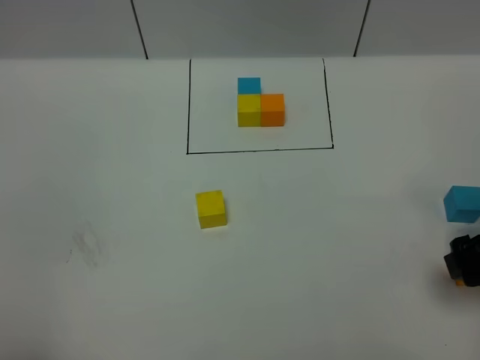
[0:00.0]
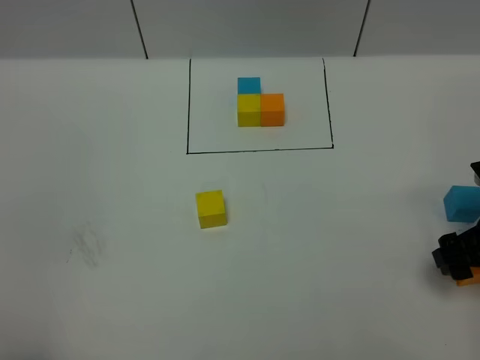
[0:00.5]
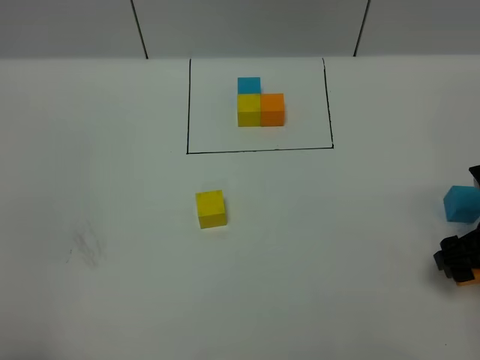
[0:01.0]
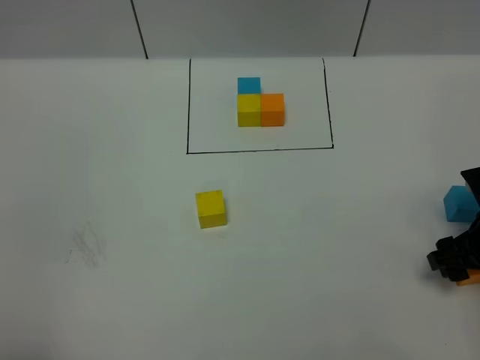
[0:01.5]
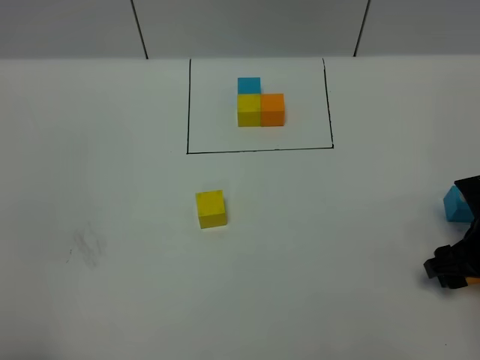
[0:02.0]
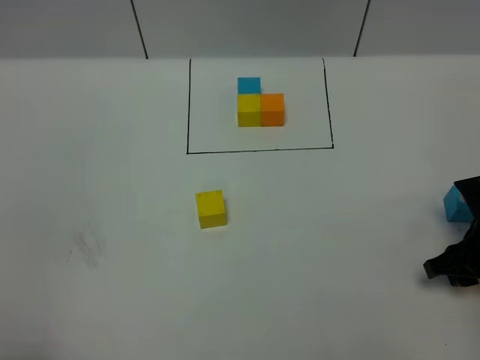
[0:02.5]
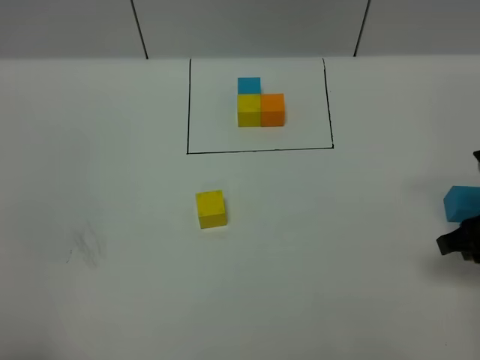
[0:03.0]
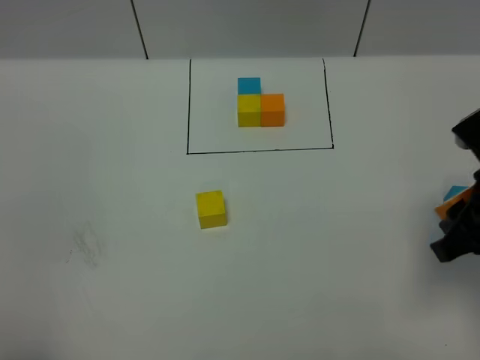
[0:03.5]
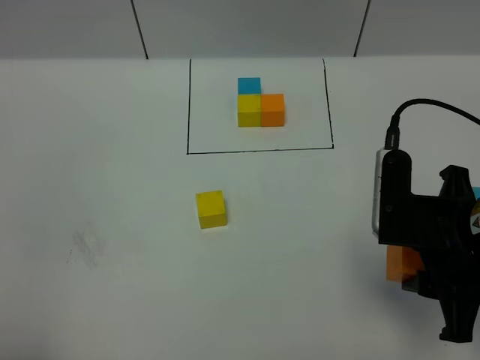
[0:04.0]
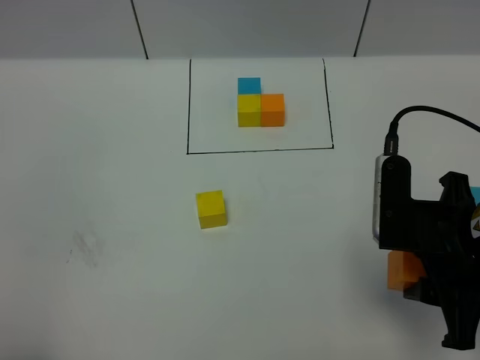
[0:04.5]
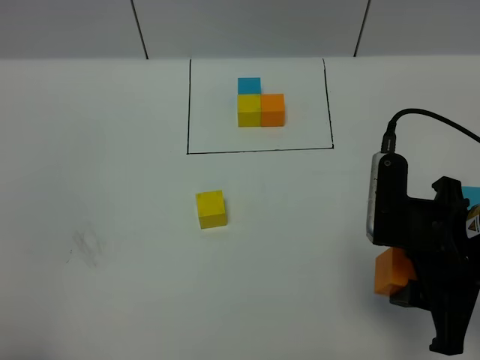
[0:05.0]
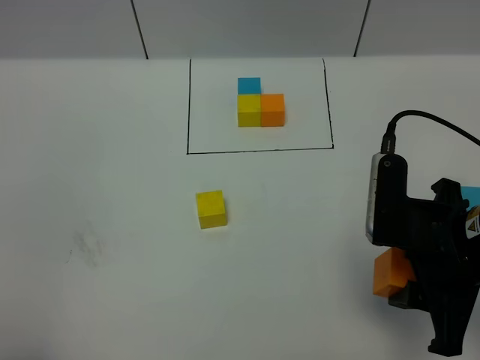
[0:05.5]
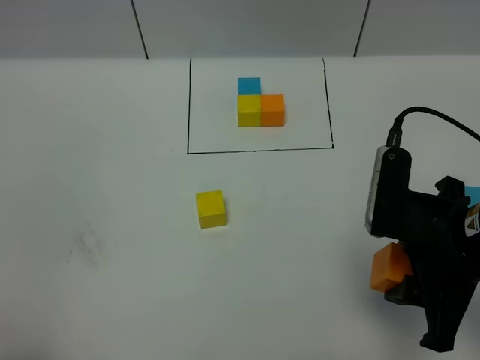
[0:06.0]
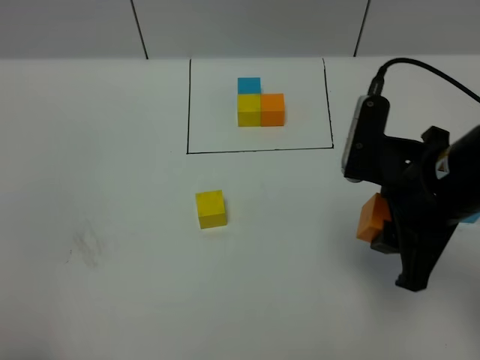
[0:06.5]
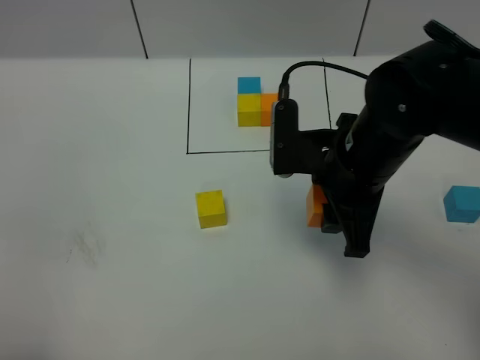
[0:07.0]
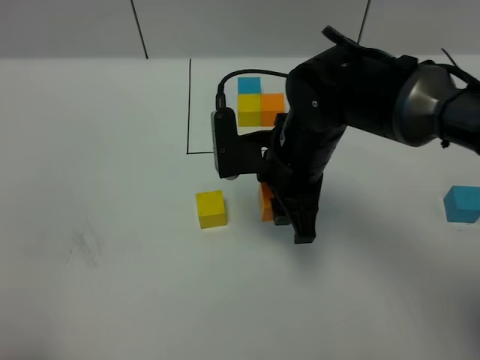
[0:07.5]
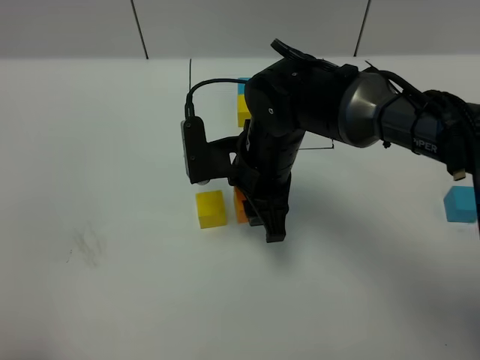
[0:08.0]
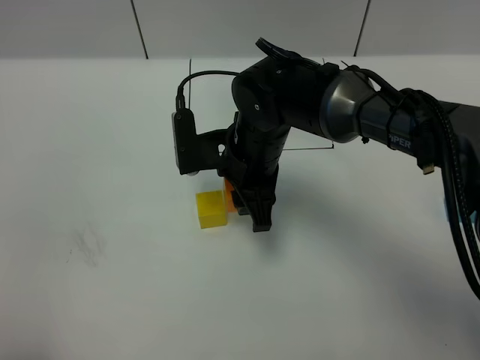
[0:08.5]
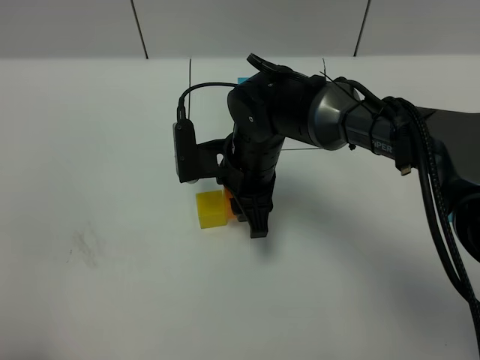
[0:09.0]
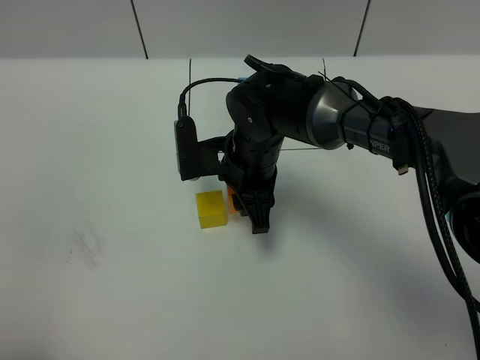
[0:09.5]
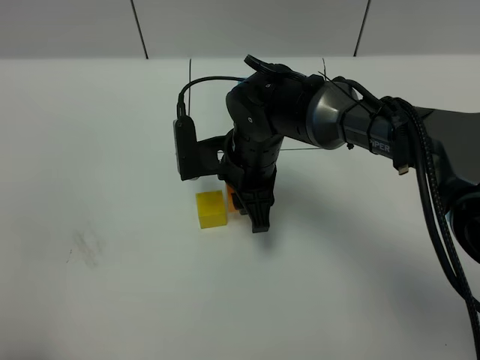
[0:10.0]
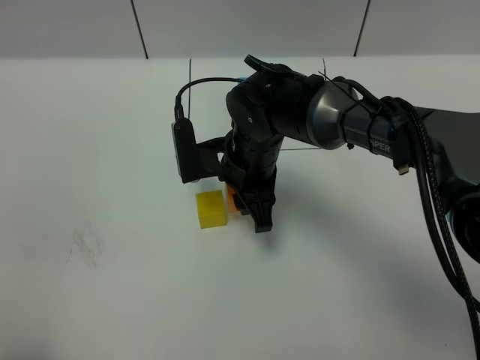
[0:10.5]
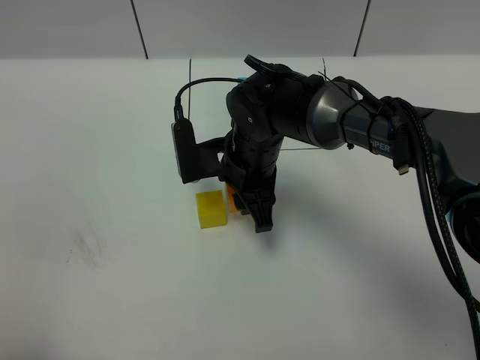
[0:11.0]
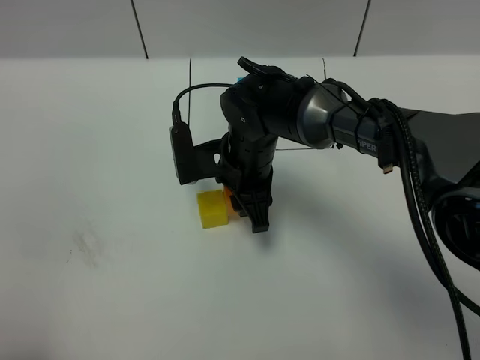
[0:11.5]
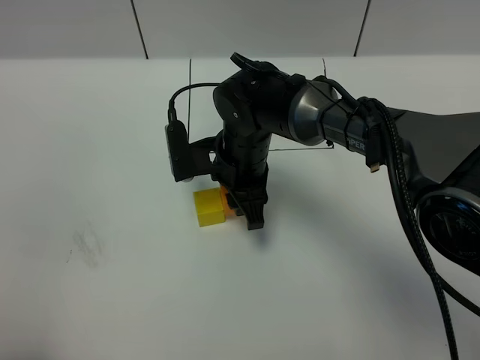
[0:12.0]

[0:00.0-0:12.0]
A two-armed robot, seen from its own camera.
Task of the whole recording: According to the building block template in front, assemble the scattered blocks together.
0.0 to 2.0 s: The right gripper heads downward, covering some 5 cm.
2.0 to 4.0 s: The right gripper heads upward, to the left and backward, covering some 20 cm.
4.0 to 6.0 s: The grippers stay close to where they were, moving slightly.
6.0 to 8.0 s: The right gripper heads to the left and forward, covering some 20 cm.
8.0 to 12.0 s: There are only small adjustments of the grippers.

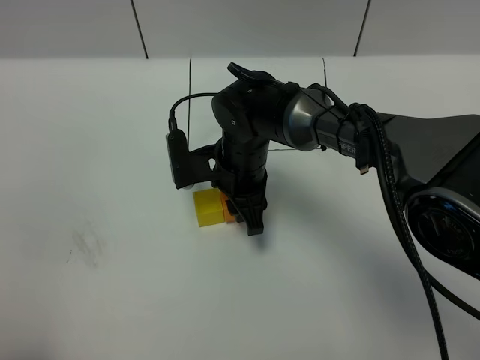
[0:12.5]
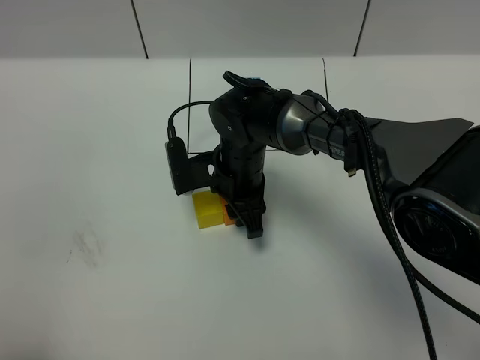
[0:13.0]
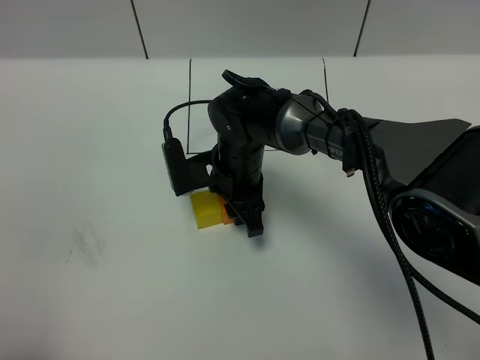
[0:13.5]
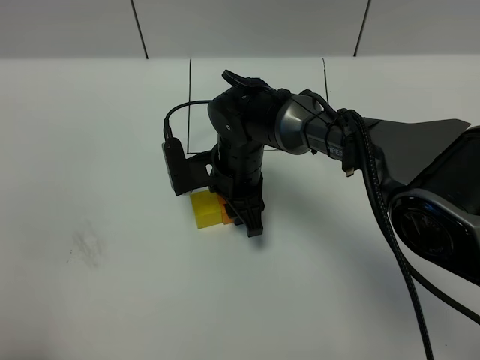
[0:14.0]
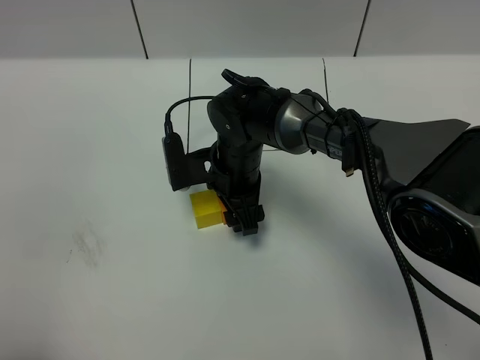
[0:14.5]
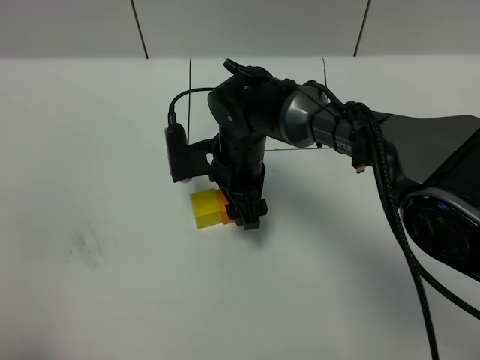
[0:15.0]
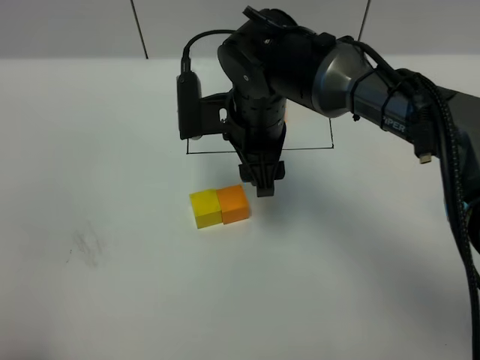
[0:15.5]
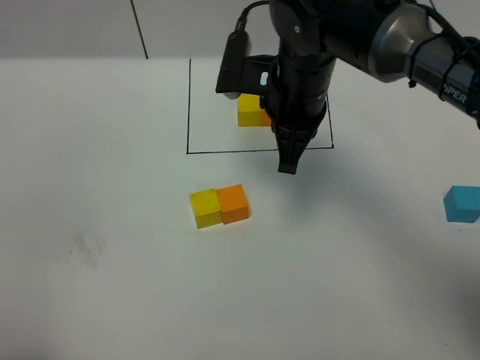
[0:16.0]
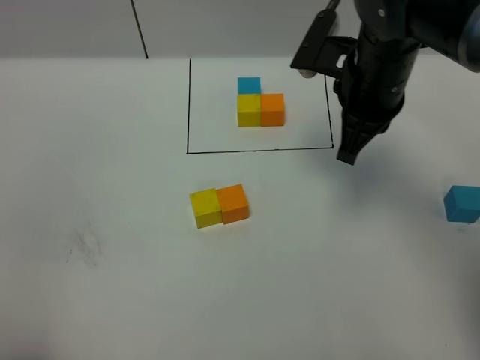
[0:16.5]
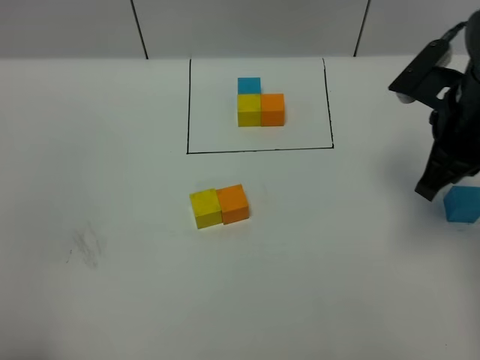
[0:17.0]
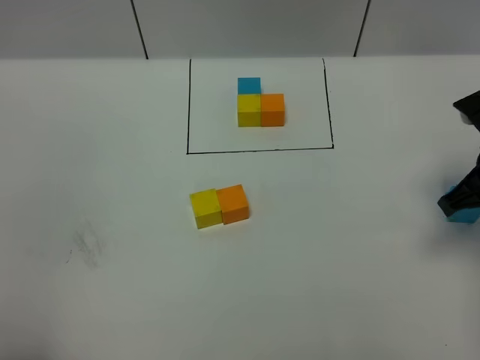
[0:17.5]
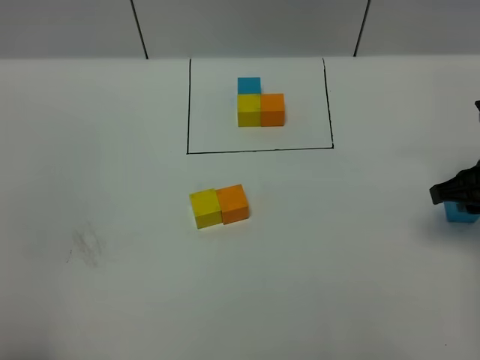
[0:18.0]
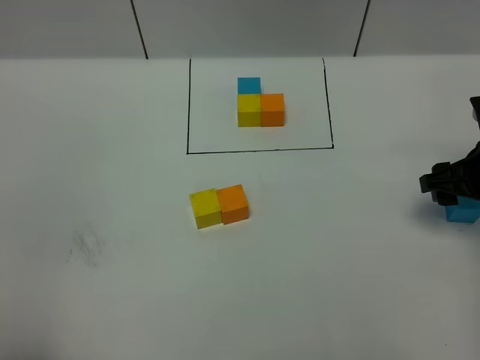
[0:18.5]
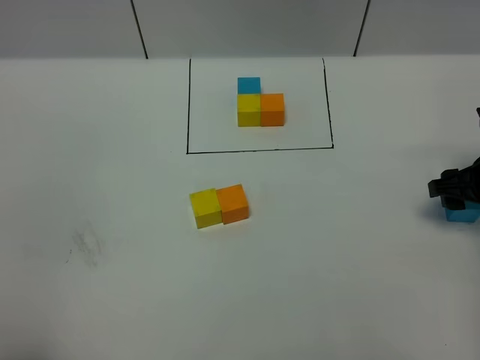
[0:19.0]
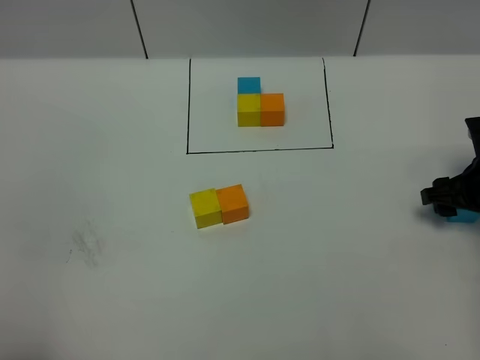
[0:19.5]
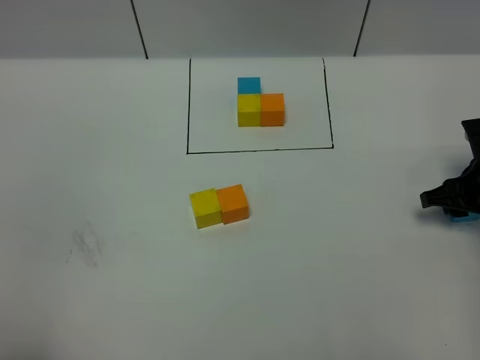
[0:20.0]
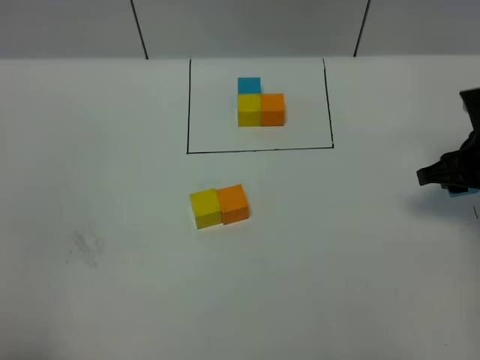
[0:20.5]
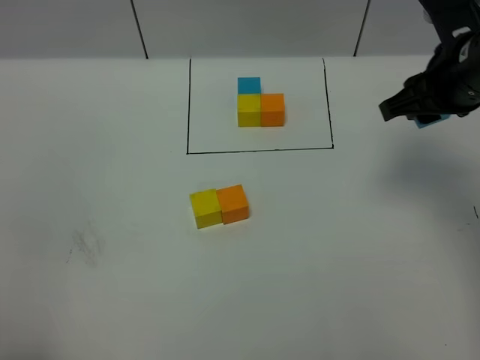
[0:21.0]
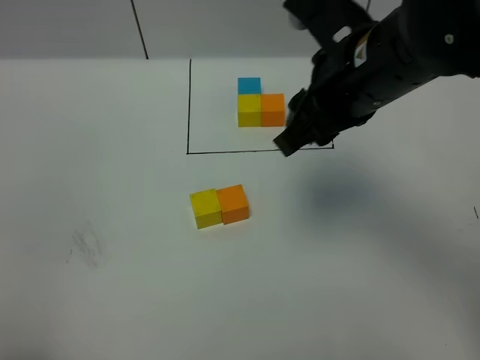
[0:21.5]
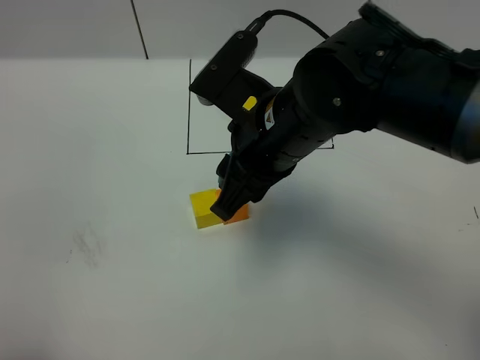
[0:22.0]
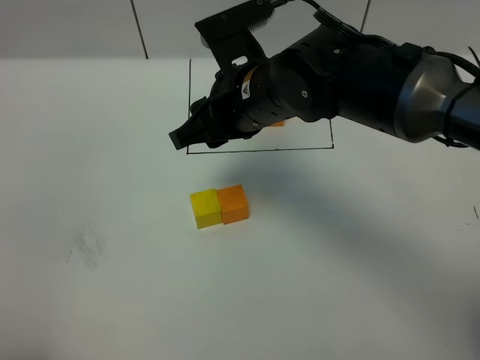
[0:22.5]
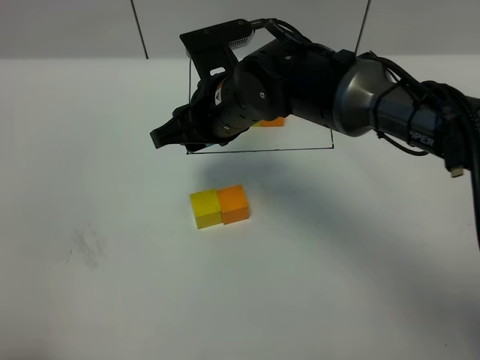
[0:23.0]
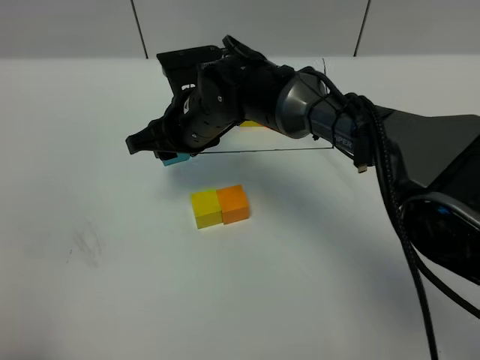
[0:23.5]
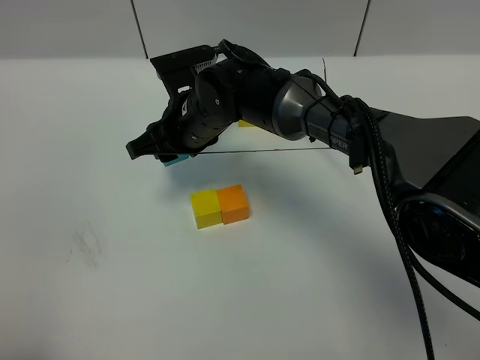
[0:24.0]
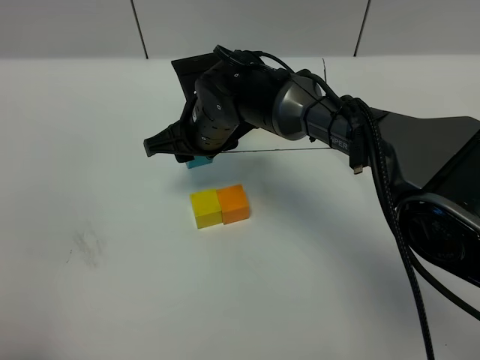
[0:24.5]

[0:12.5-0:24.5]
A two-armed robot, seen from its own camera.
Task of the whole recording: According to the building block template in front, assemble the scattered blocks together.
Step, 12.5 to 15.5 s: Put the orange cube on the right of the yellow cube.
12.5 to 14.5 s: The grippers make only small movements.
14.5 to 16.5 s: The right gripper goes about 20 cm to the right and upward, and closes up.
16.5 to 18.5 s: The right gripper heads to the right and downward, covering roughly 20 cm, and opens.
18.5 to 20.5 s: The grippers stay close to where they were, moving slightly.
20.5 to 22.5 s: The right gripper travels to the left by roughly 30 cm.
22.5 to 24.5 s: The right gripper is displaced downward, forward and to the left by some 15 cm.

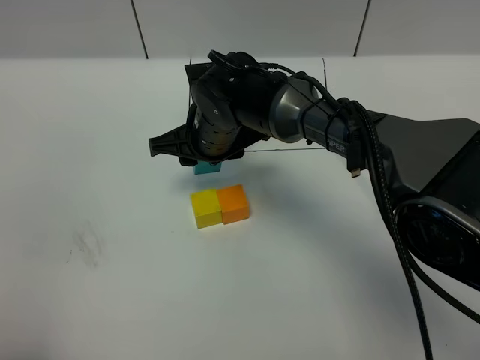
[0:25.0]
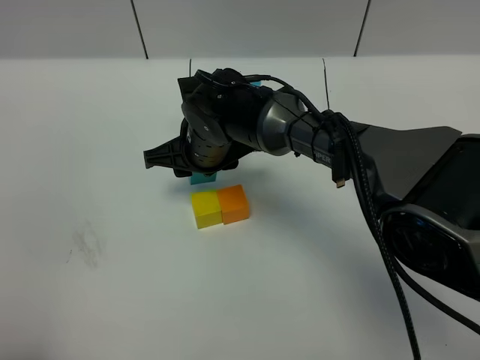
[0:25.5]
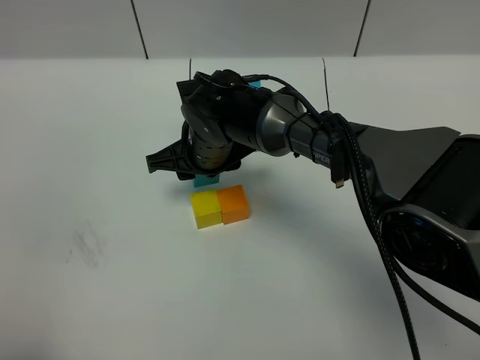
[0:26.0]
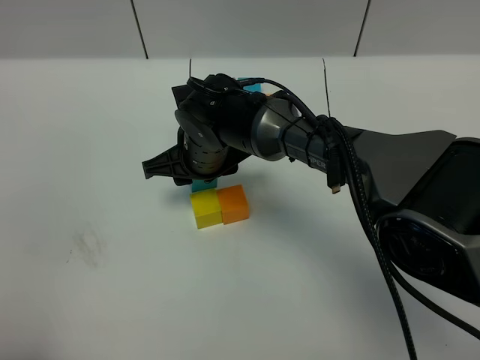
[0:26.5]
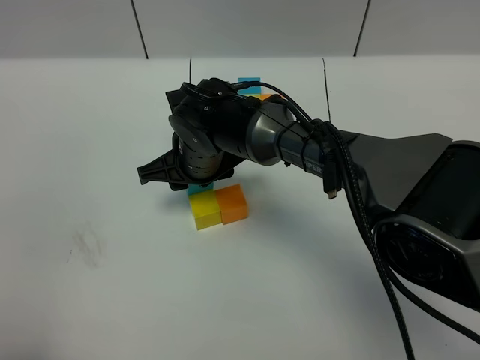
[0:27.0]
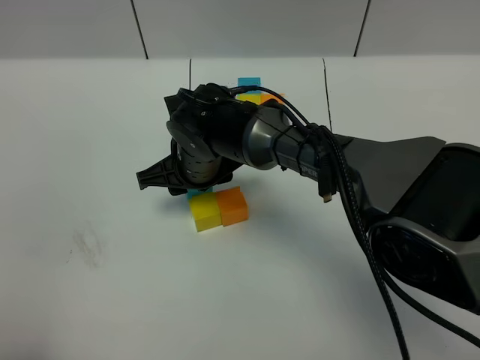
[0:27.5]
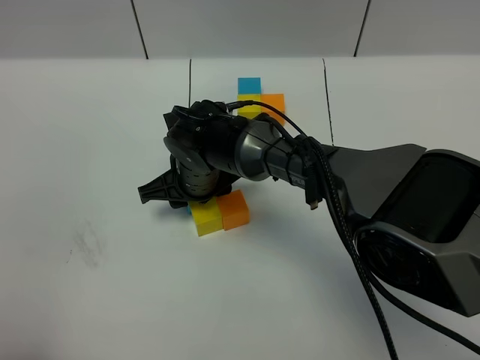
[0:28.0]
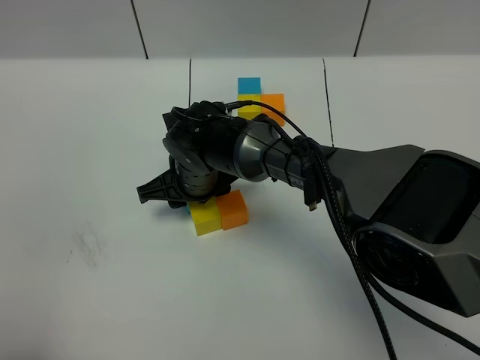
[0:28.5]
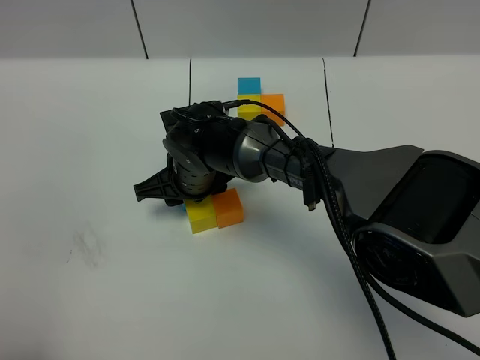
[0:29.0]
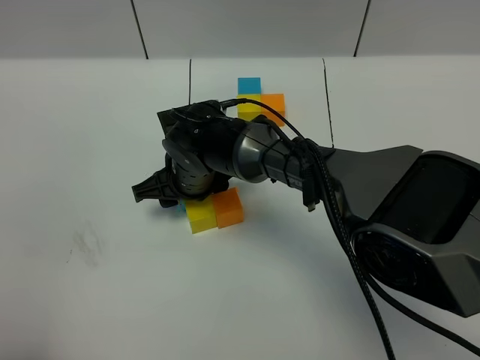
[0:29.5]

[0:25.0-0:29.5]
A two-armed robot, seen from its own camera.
Task of the whole recording: According to the building block template in front, assemble the scattered blocks together.
25.0 to 27.0 s: There are only small adjustments of the grippers.
27.0 to 29.5 s: The grippers move only a little.
